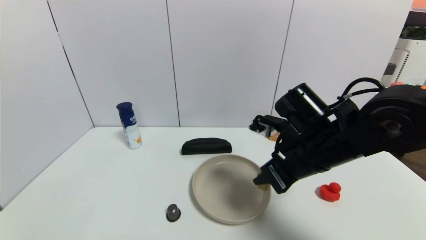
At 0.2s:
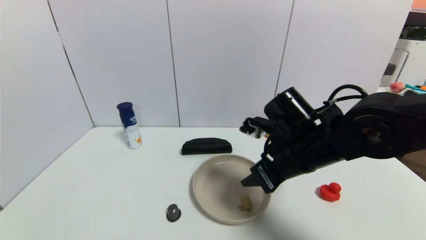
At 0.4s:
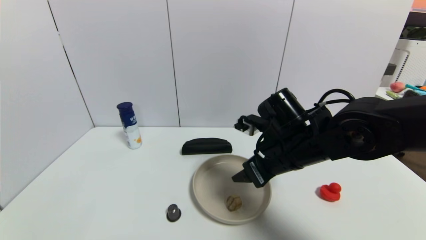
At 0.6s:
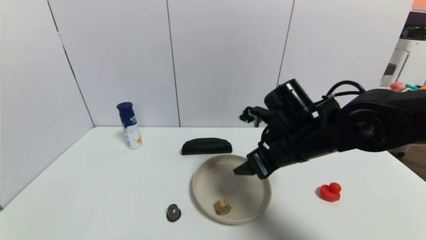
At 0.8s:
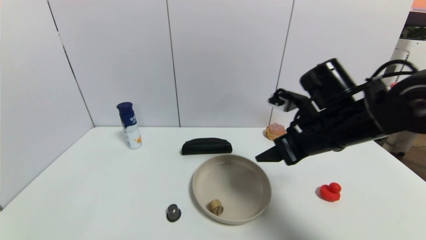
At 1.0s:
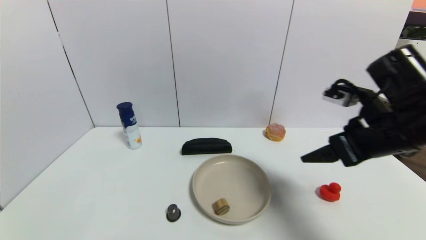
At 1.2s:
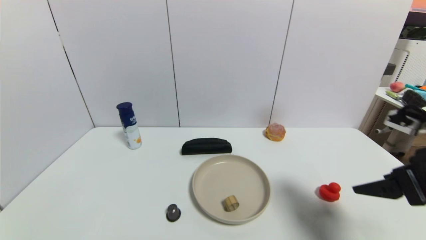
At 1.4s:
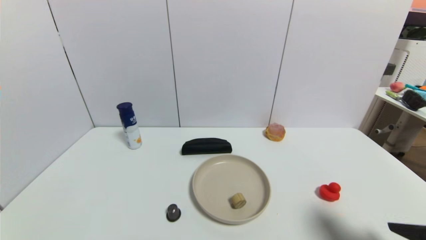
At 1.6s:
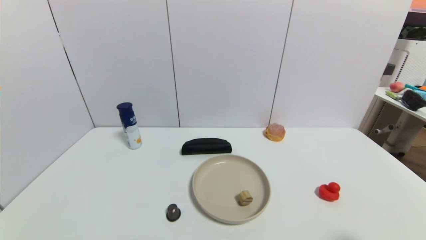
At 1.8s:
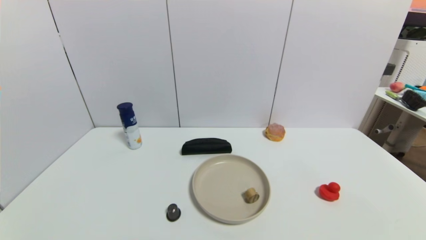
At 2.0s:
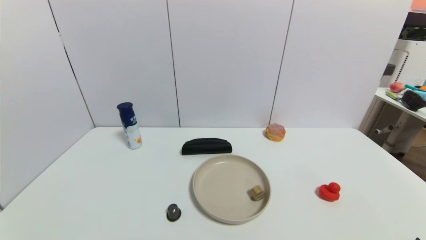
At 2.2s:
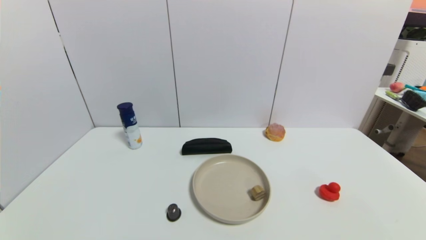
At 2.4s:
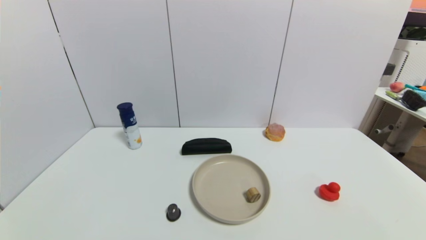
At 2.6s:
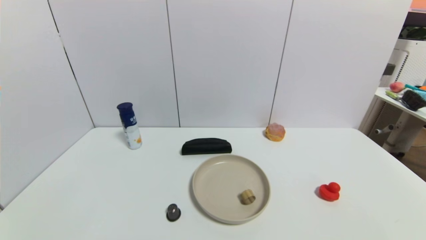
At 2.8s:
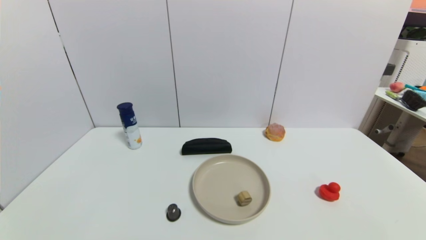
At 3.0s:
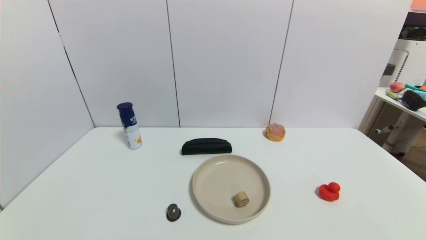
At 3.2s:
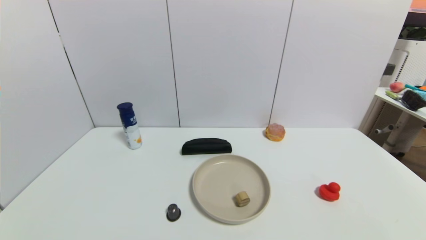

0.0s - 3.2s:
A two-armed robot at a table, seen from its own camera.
Task of the whole recording: use a gripper to pick the target object and place on the brown plate.
0.0s - 1.6s: The right gripper is displaced backward and to the right by about 30 cm, and opens its fingers.

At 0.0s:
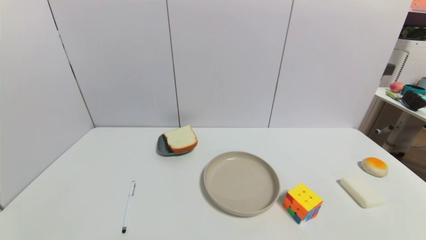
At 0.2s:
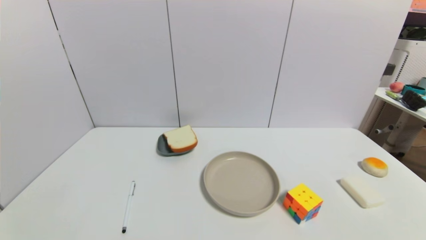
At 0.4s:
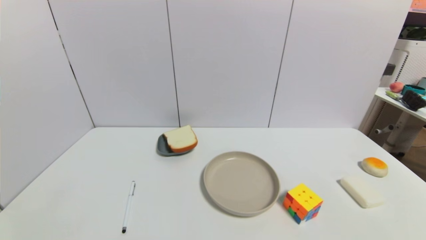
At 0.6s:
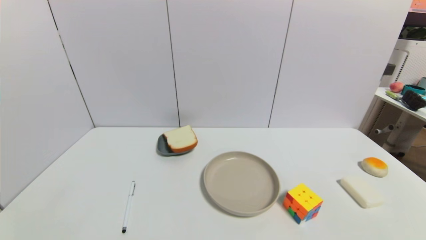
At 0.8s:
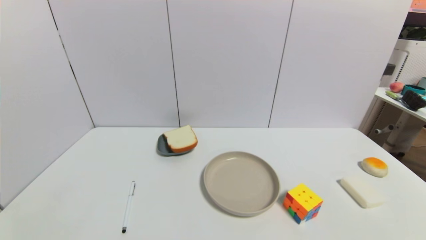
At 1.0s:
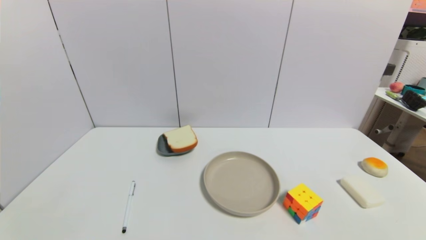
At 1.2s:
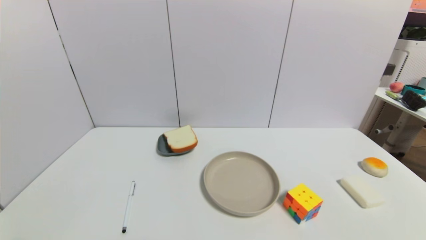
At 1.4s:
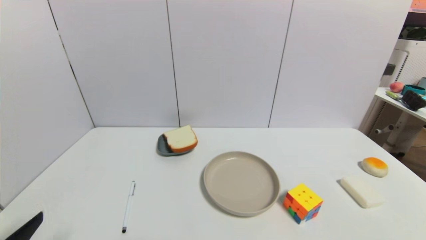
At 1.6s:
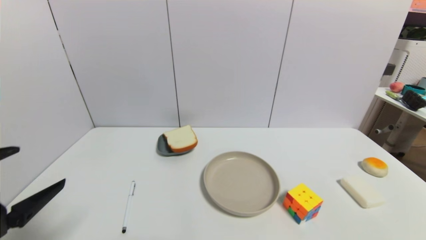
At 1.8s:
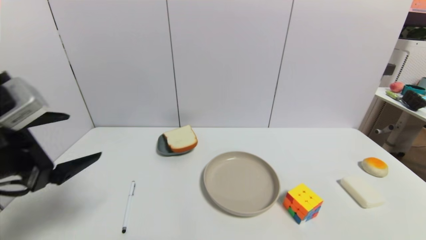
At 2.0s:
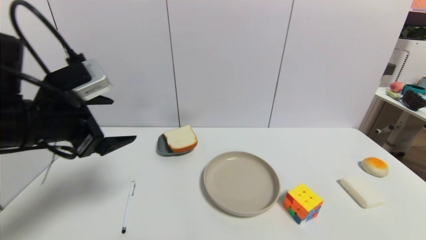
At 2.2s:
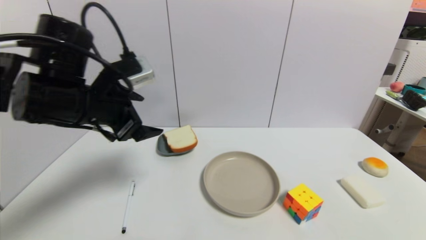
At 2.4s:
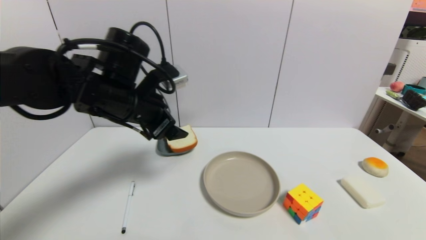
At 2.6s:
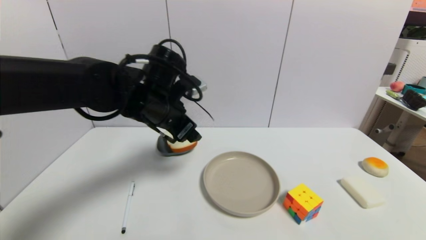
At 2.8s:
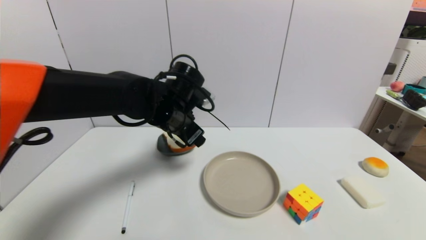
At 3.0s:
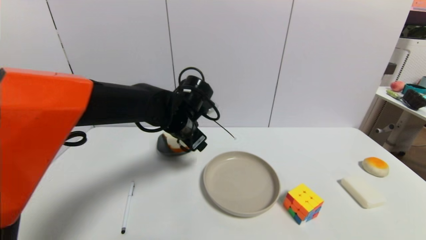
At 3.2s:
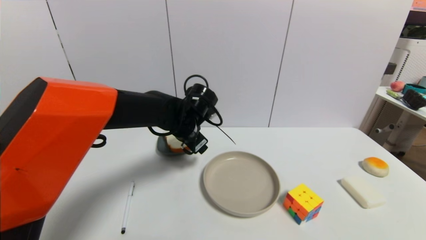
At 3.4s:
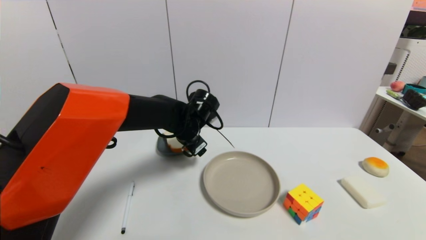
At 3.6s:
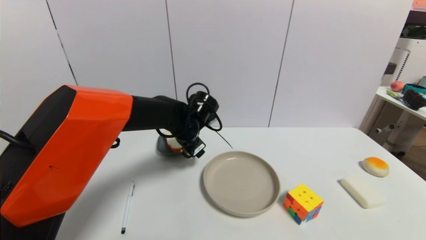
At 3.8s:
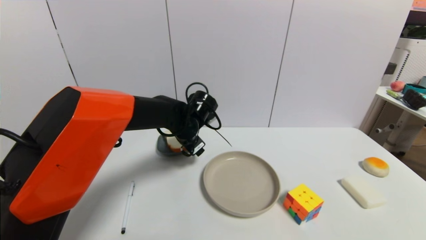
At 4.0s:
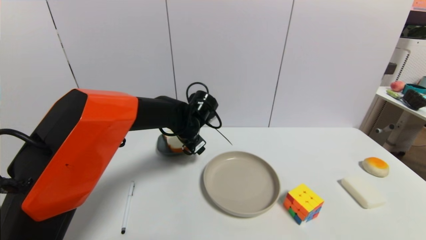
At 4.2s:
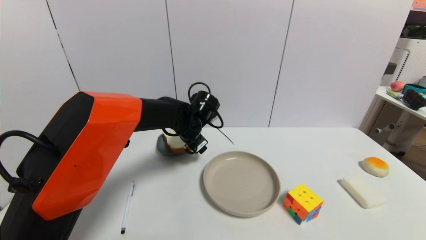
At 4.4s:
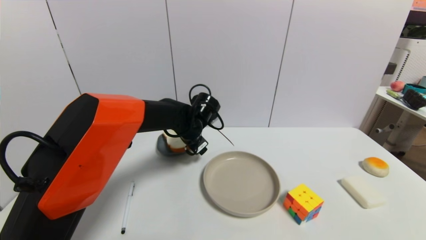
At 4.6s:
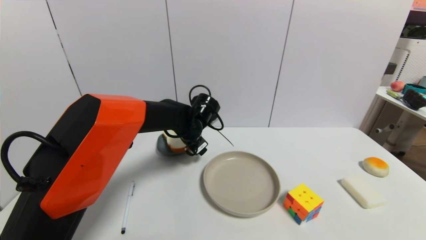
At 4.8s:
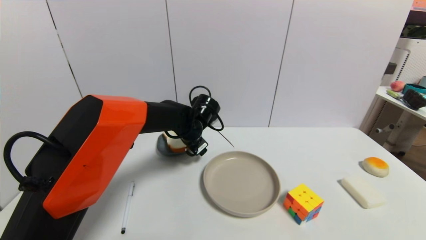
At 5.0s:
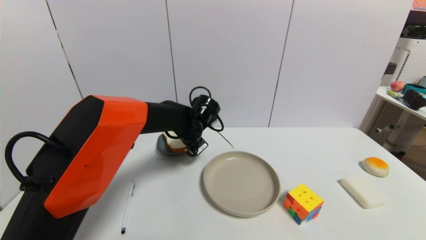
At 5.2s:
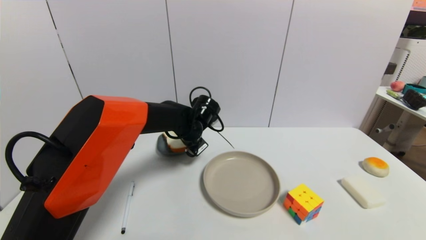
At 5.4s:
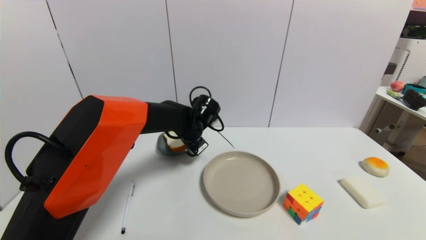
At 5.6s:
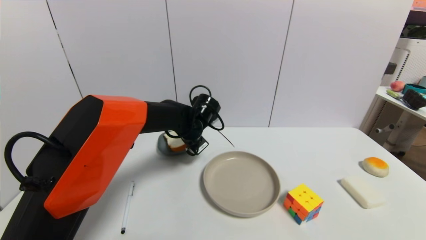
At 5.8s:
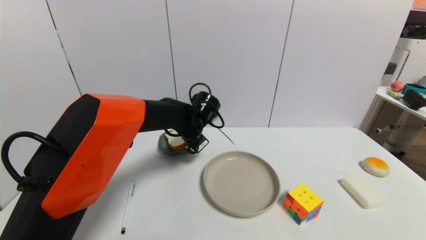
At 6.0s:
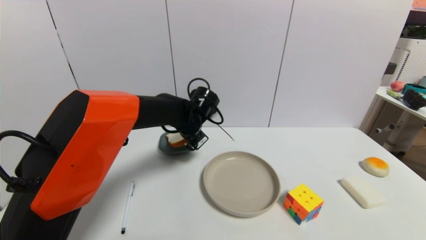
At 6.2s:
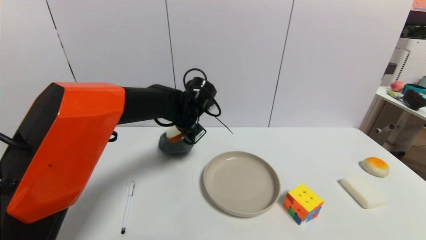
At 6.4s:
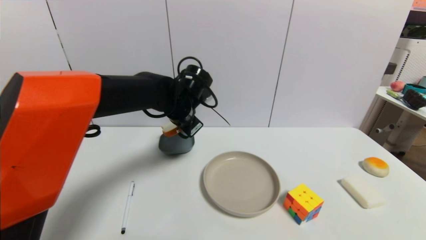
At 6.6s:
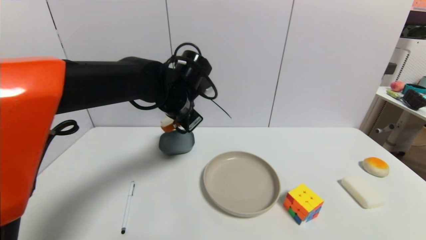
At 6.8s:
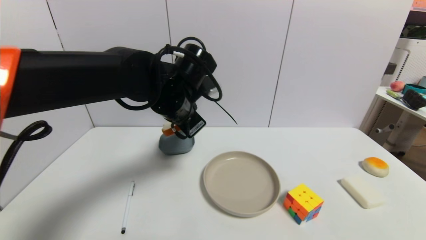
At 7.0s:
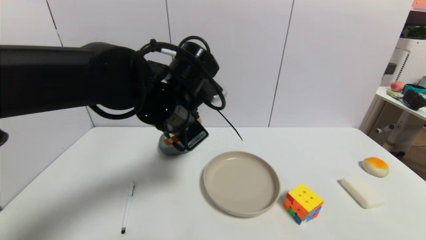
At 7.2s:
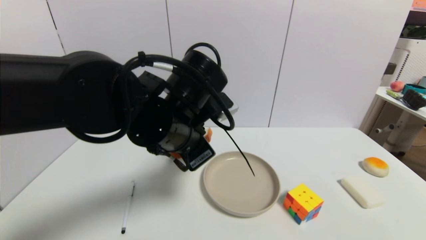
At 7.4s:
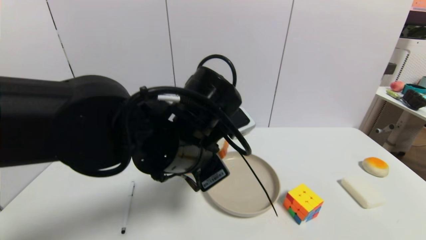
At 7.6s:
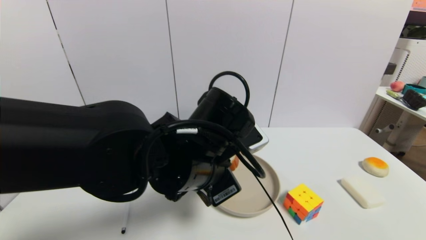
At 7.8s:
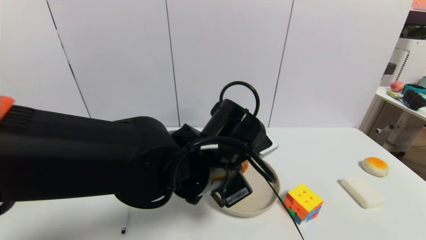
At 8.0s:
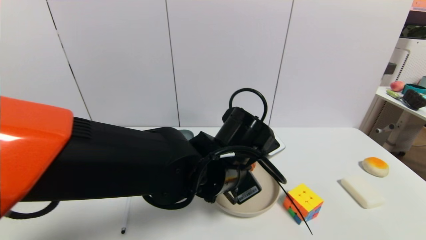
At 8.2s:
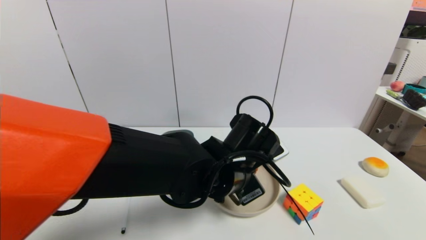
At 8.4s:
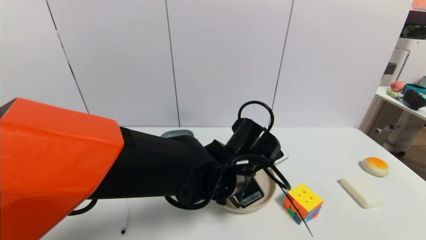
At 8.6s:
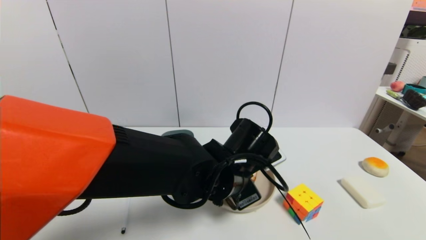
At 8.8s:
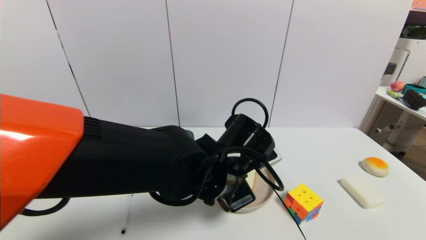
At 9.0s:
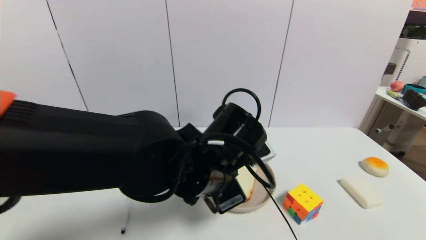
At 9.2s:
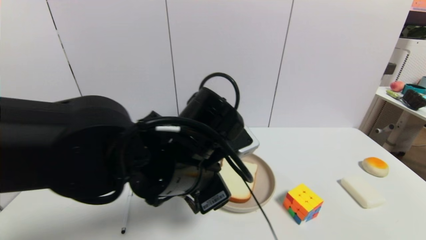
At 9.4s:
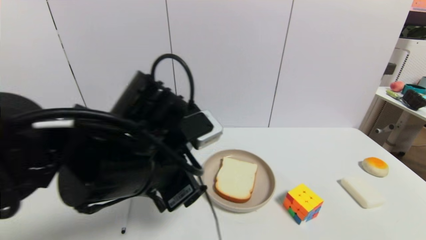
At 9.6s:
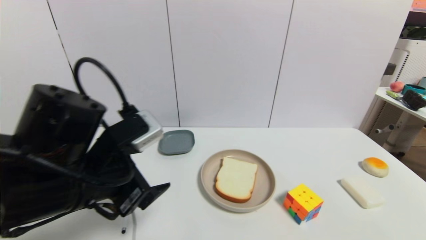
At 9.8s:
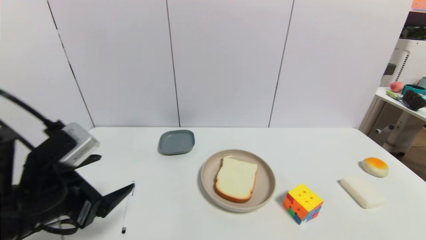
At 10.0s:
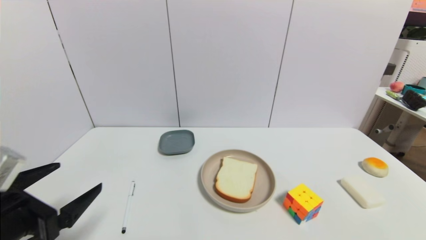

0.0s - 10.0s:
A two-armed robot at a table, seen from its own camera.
Task of the whole recording: use a gripper to pick the target object and place on the brown plate.
Step, 0.0s - 5.4s: Grasp the bread slice with the left gripper.
Step, 5.6s - 8.6s: Place the bread slice on the brown plate with the left gripper.
1.4s - 2.8s: The left gripper goes approximately 35 cm forward and to the right.
2.8s - 4.2s: The left gripper heads downward and forward, covering roughly 10 cm.
4.2s - 5.8s: The left gripper closes its fingers.
5.8s - 7.2s: The left gripper goes roughly 20 cm backward and upward.
7.2s - 8.6s: The left gripper travels downward and to the right by about 10 cm, and opens up.
8.6s - 10.0s: The left gripper is displaced to the left and backward by approximately 30 cm, and opens up.

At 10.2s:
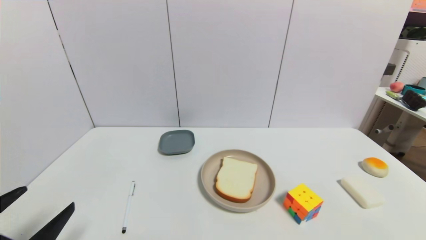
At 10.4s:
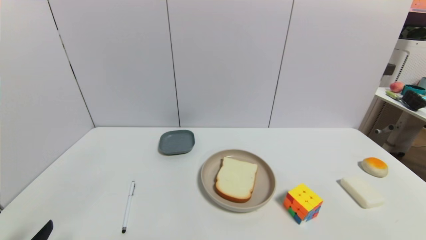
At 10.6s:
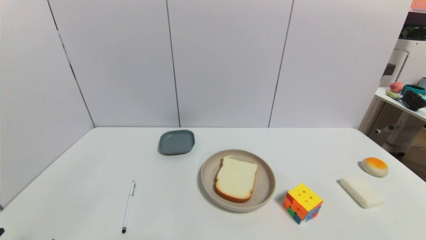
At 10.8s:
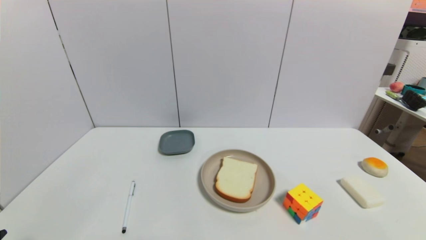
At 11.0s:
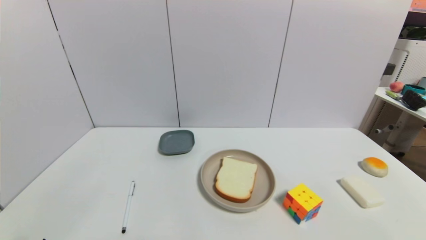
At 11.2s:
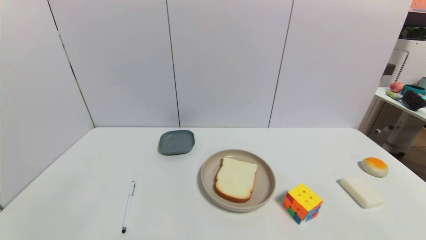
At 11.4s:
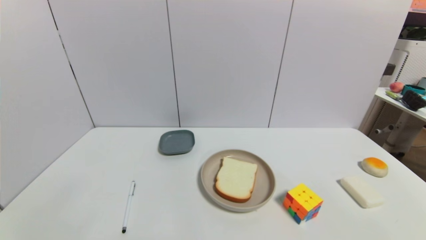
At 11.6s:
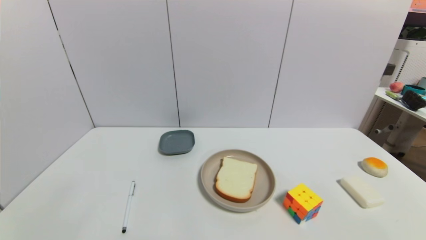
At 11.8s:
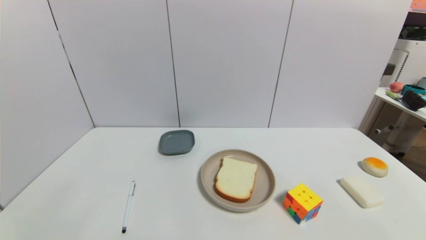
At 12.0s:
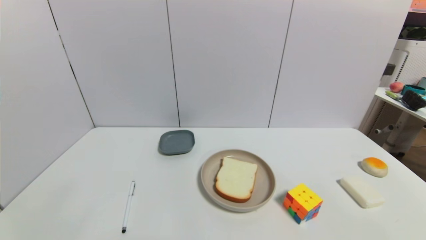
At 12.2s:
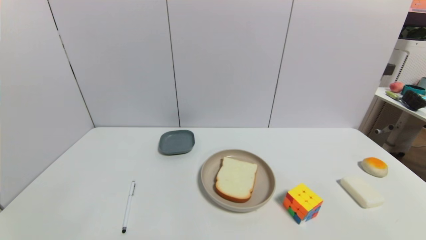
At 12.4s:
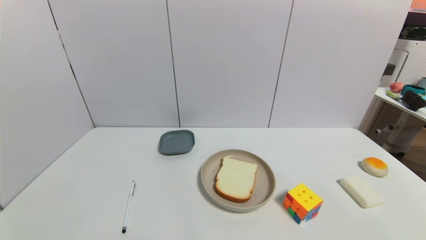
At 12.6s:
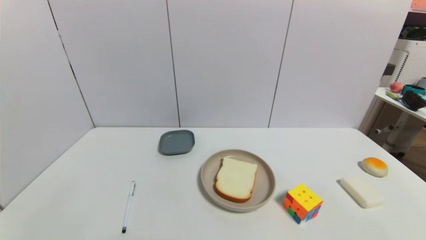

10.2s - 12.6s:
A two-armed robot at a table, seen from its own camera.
Task of the whole recording: use a gripper to pick the target object and place on the brown plate.
10.2s - 11.4s: The left gripper shifts about 10 cm backward and downward.
11.4s - 12.6s: Both grippers stay put.

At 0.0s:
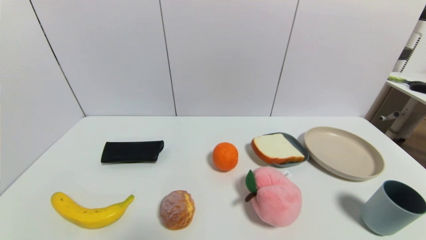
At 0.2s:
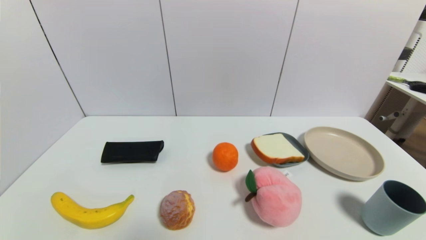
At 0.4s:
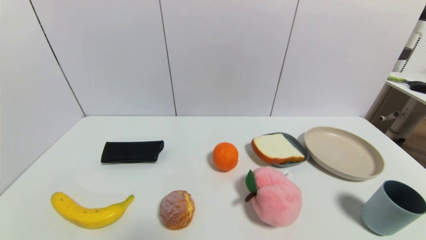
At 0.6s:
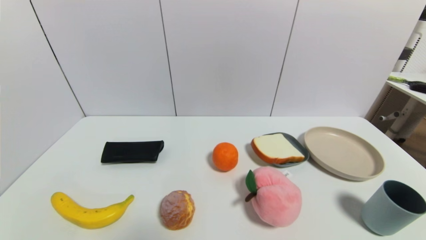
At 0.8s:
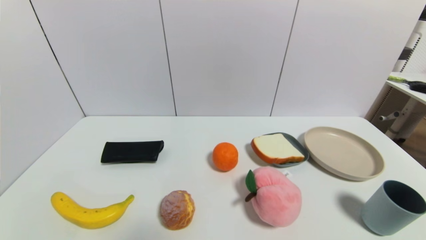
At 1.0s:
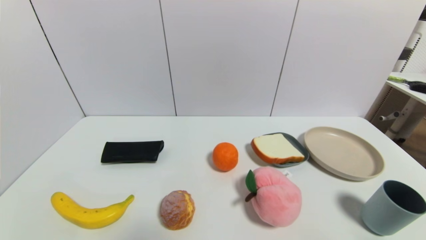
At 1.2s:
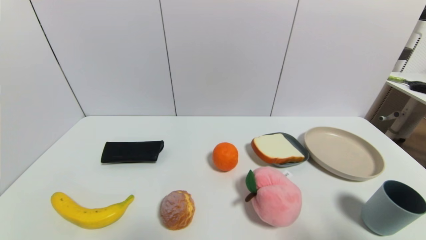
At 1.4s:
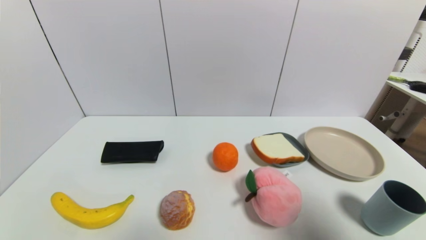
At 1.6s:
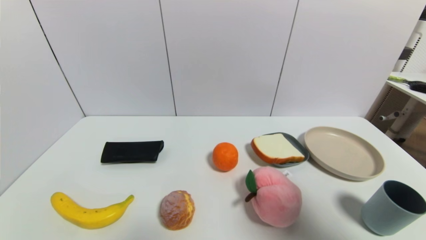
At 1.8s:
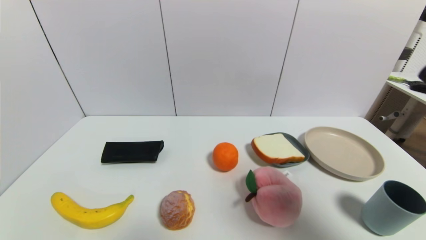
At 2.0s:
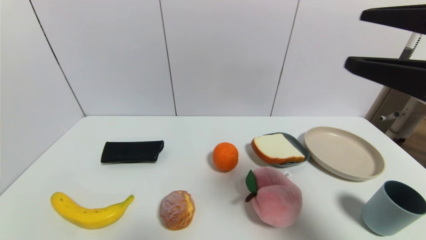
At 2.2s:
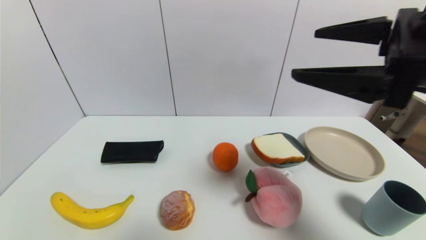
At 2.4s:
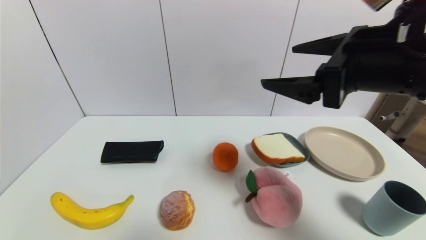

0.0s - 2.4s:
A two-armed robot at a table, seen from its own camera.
Task of the whole recording: use a gripper to pick the target object and place on the brown plate.
0.0s - 1.2s: The right gripper goes about 15 cm upward.
1.2s - 2.4s: The right gripper goes about 25 cm forward, to the left and upward.
